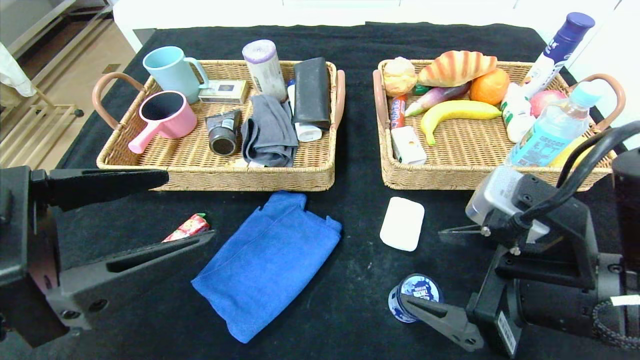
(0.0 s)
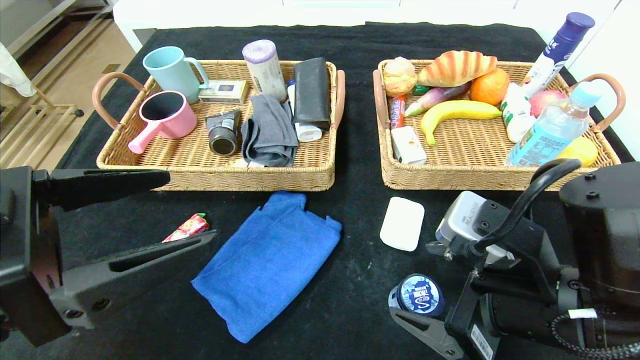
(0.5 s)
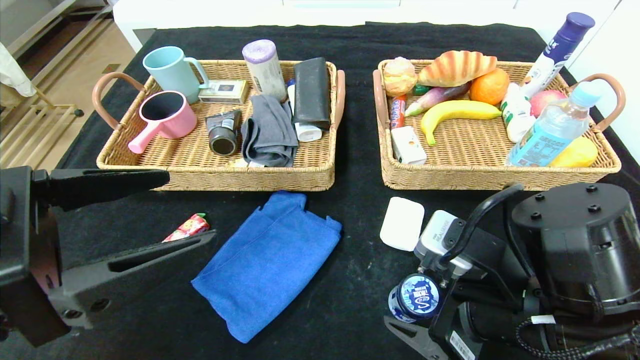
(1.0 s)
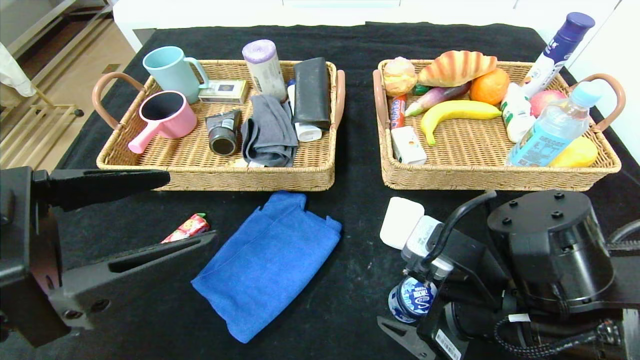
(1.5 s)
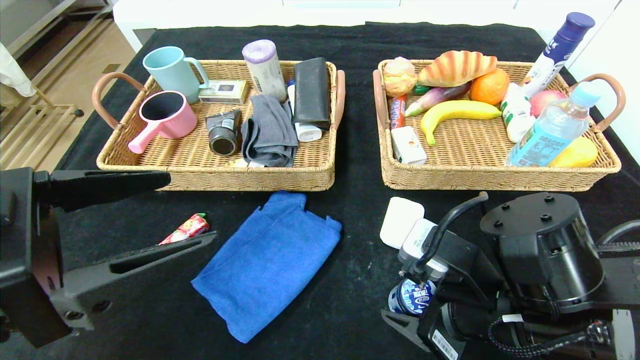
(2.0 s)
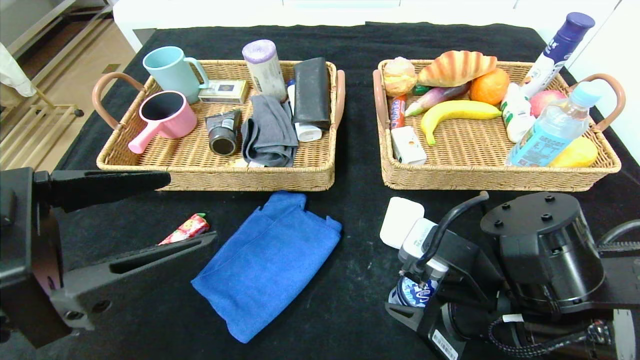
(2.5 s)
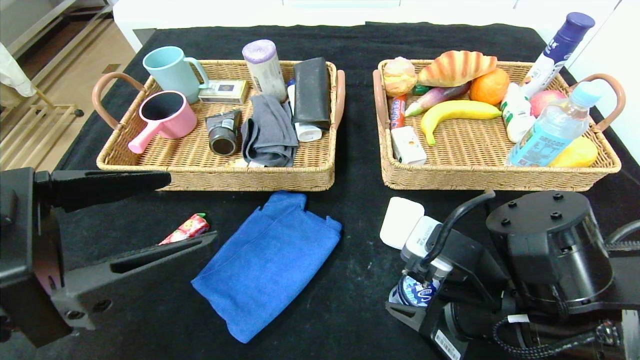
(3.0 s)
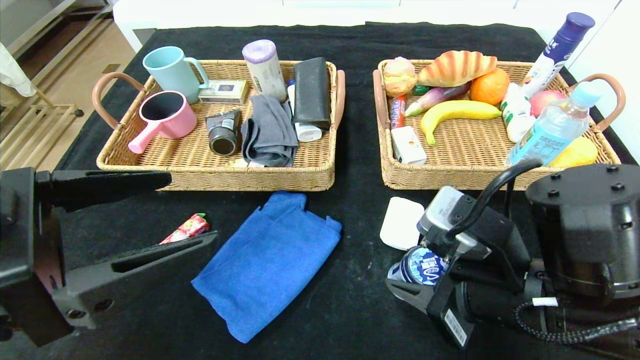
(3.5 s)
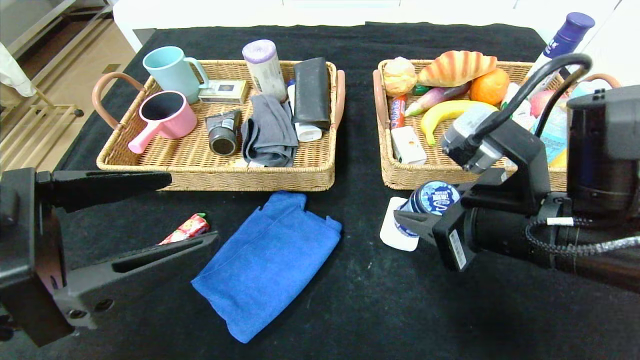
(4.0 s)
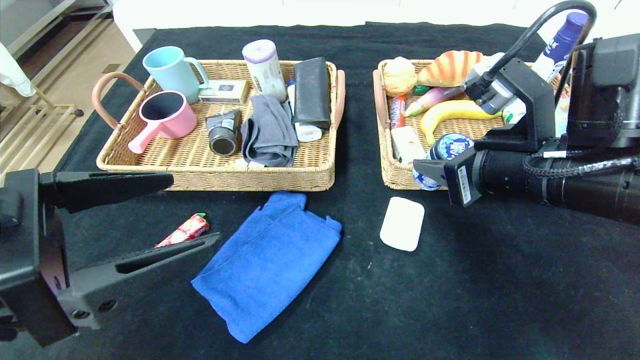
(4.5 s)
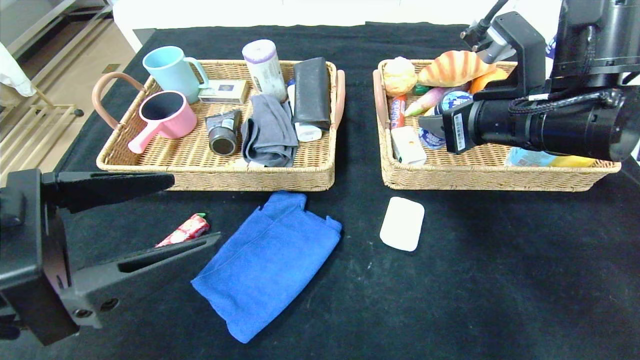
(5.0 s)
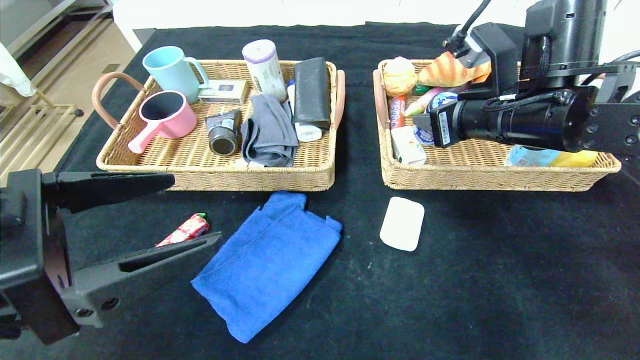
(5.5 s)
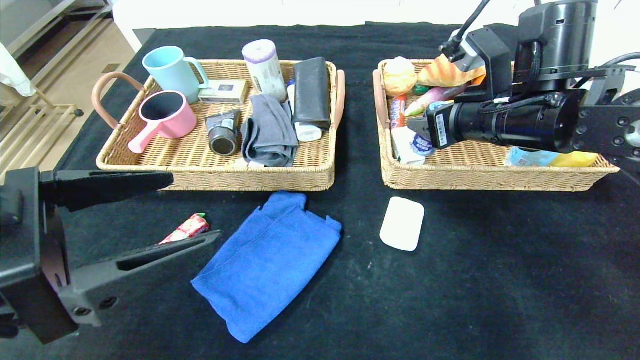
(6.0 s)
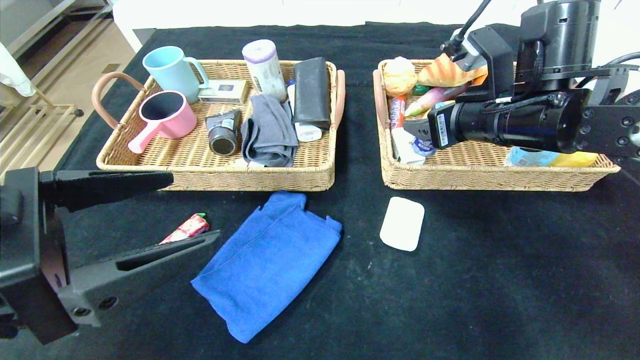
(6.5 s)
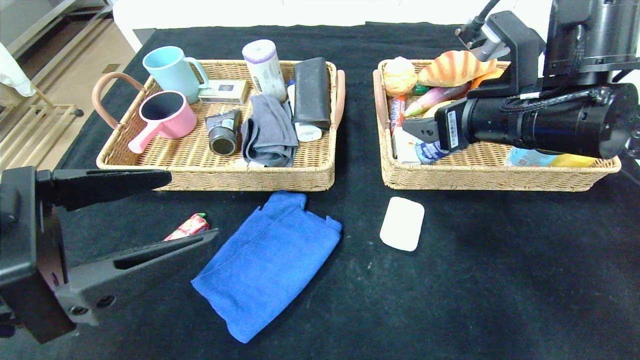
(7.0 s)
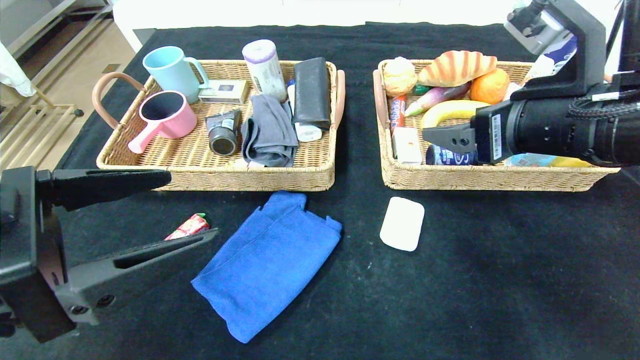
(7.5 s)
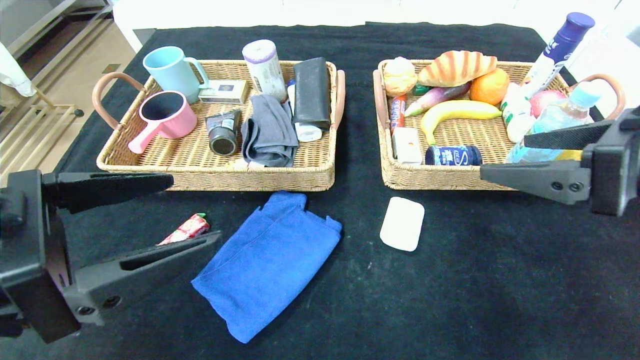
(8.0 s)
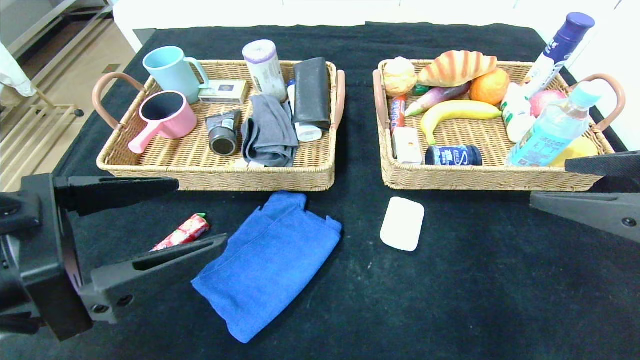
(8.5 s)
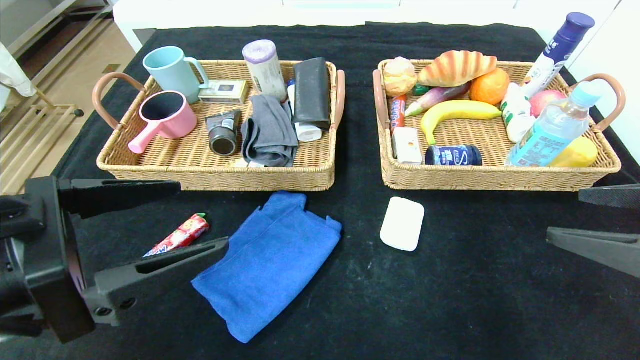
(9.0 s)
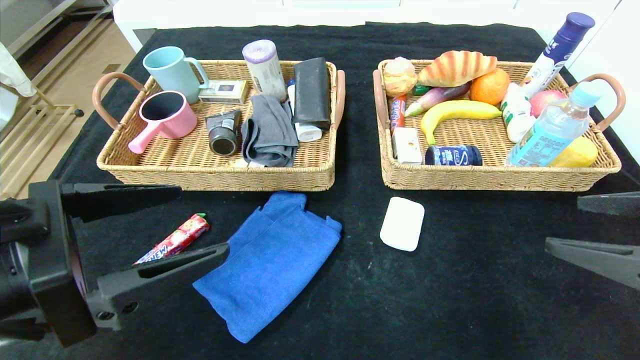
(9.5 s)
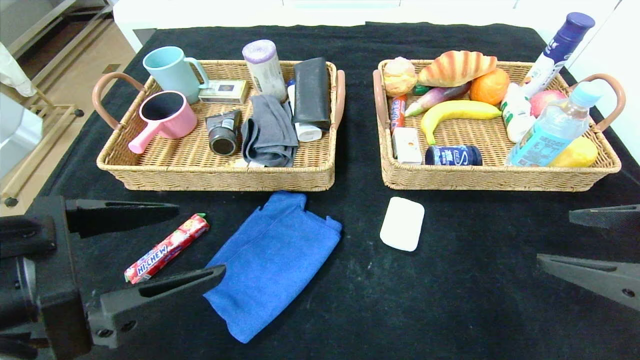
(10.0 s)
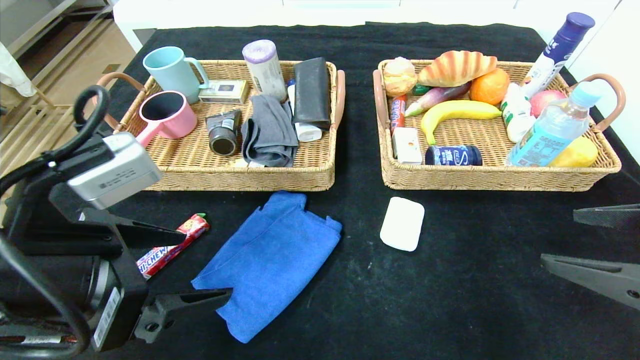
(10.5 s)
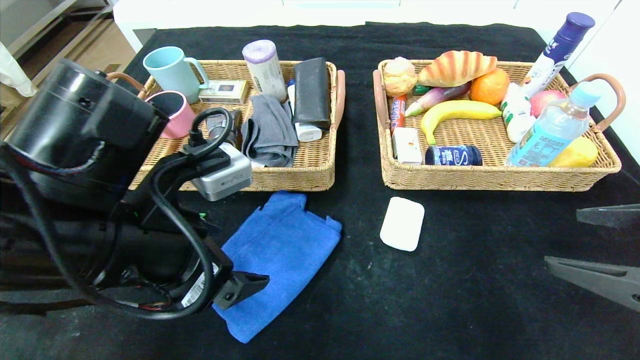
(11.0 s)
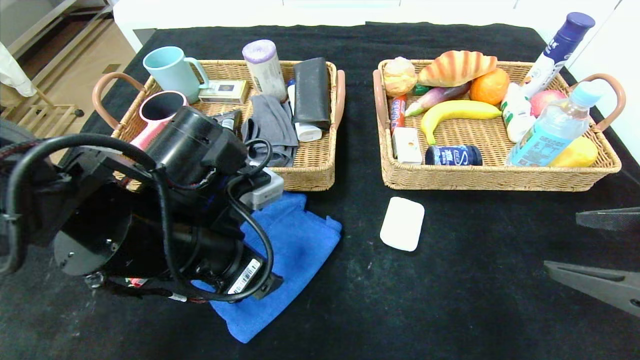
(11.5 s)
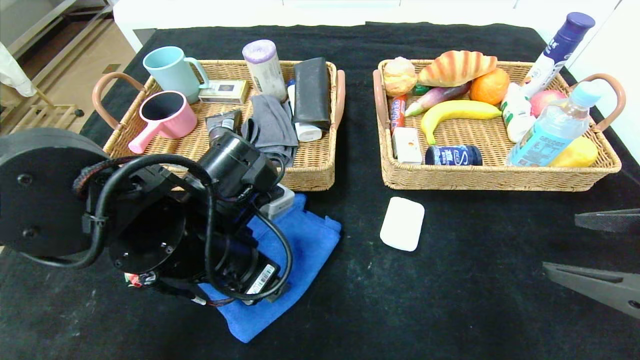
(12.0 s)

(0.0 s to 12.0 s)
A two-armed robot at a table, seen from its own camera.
Step, 0.0 s - 7.0 s: Grasp the round chewing gum and put it in the right basket.
0.0 s - 2.0 s: The right gripper heads downward, covering approximately 5 cm.
2.0 s - 4.0 s: The right gripper is displaced upward by some 5 cm.
4.0 s - 6.0 s: The right gripper heads forward and upward, covering some 15 cm.
6.0 s - 8.0 s: The right gripper shifts roughly 15 cm backward and to the right, and opens up.
8.0 s - 10.0 s: The right gripper goes about 5 cm downward and to the right.
10.0 s - 12.0 s: The left gripper heads forward, to the right and downward, covering about 15 cm.

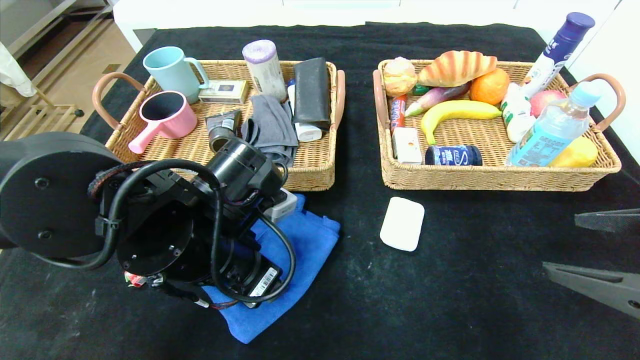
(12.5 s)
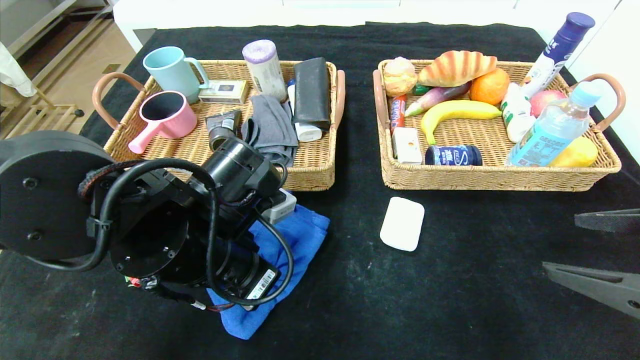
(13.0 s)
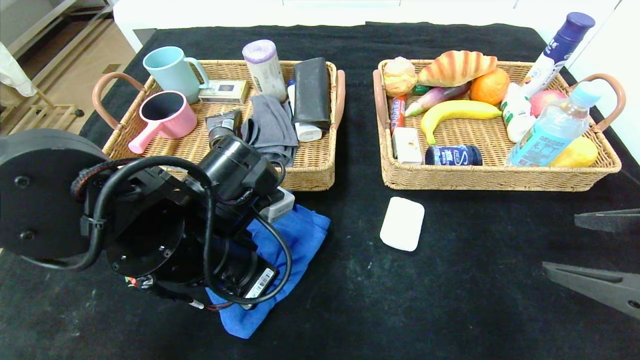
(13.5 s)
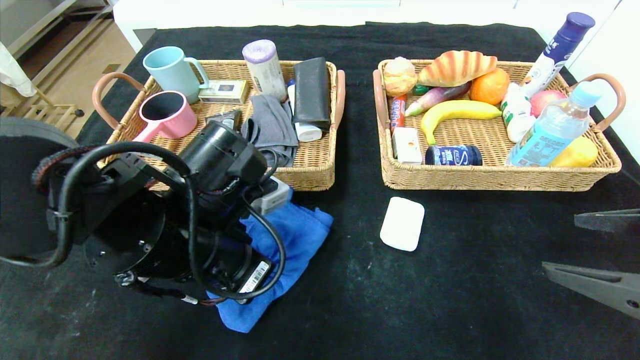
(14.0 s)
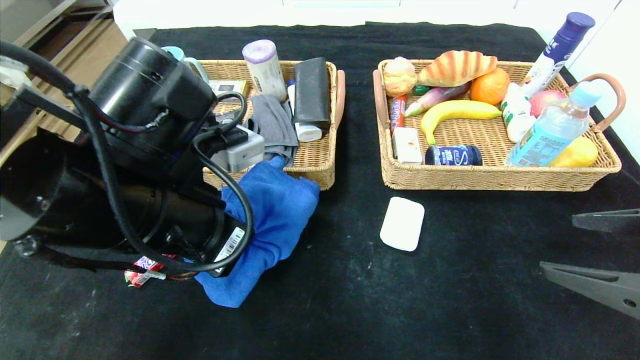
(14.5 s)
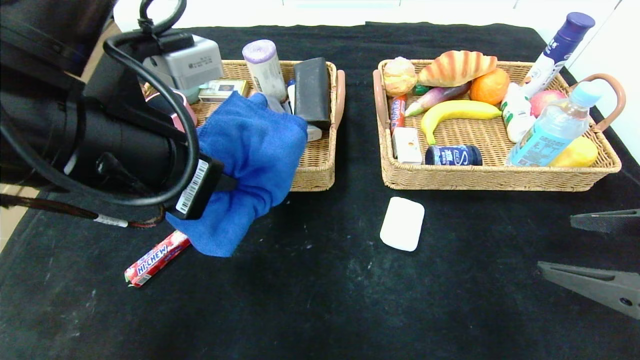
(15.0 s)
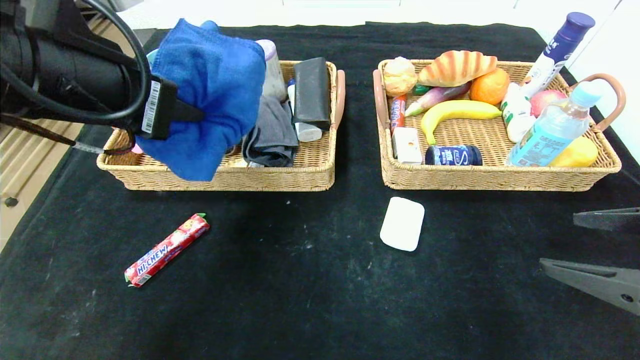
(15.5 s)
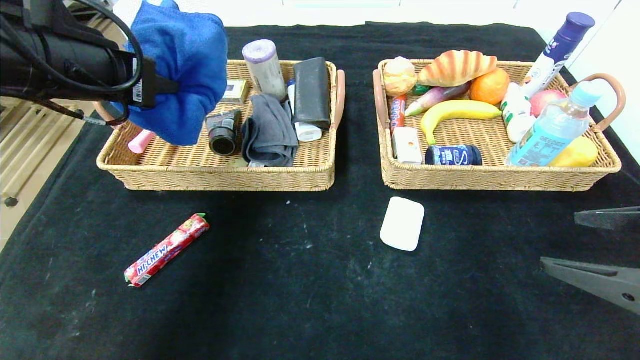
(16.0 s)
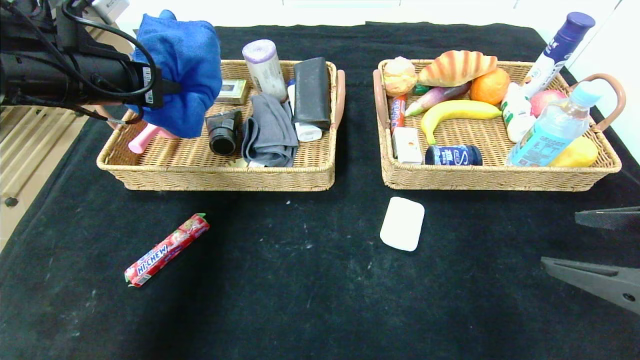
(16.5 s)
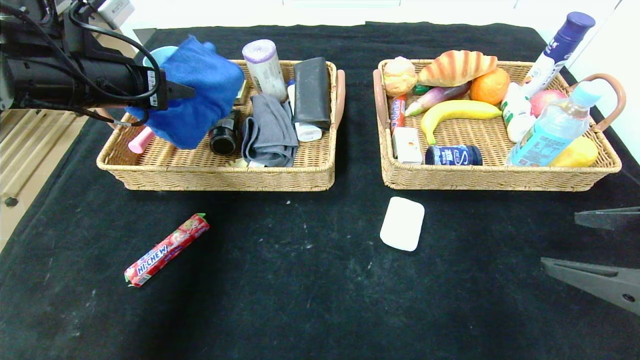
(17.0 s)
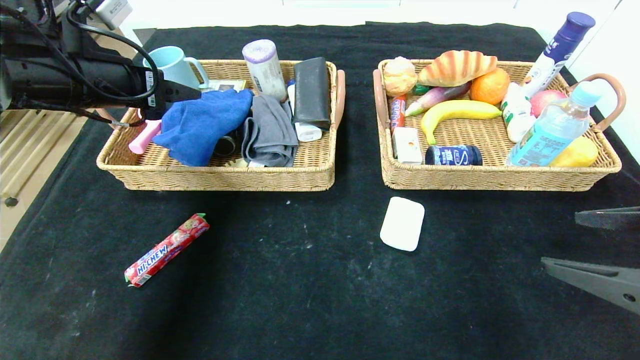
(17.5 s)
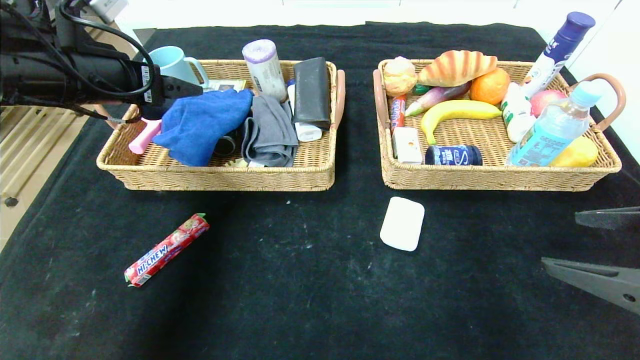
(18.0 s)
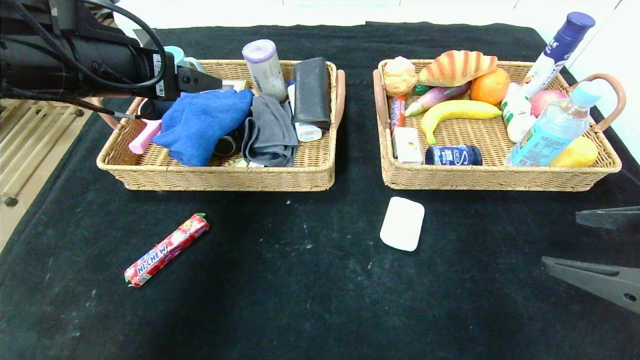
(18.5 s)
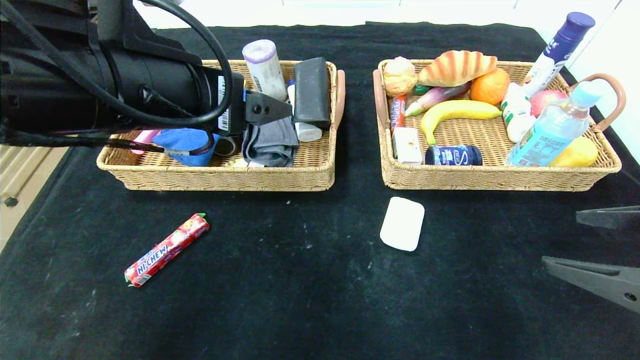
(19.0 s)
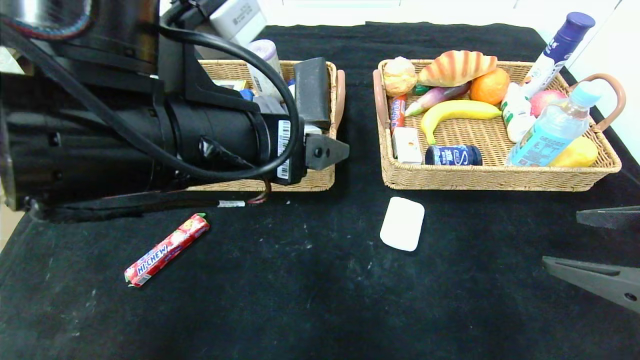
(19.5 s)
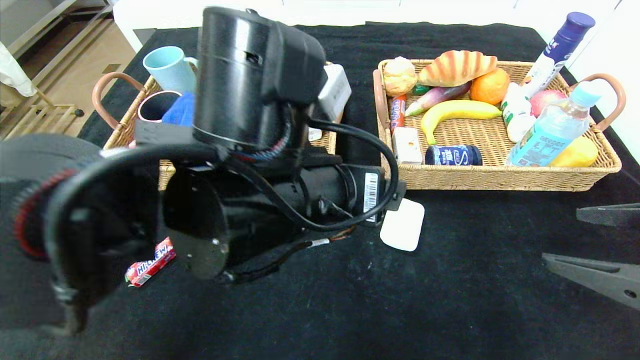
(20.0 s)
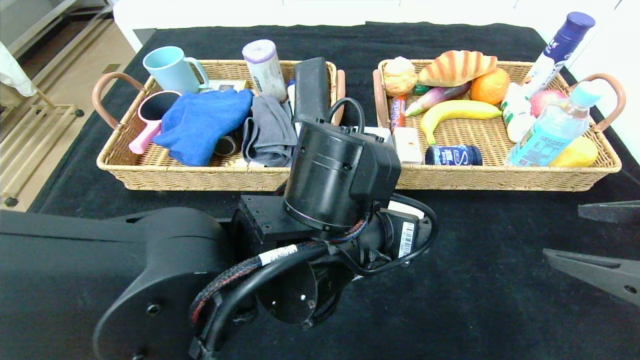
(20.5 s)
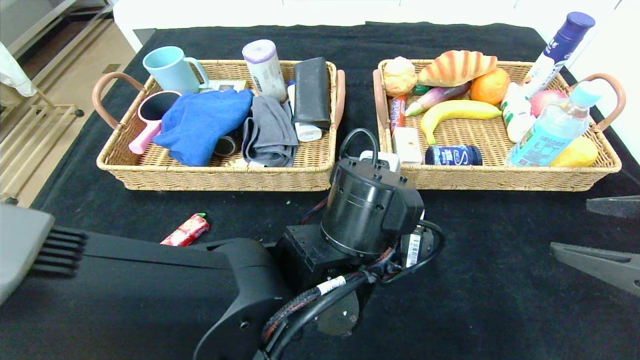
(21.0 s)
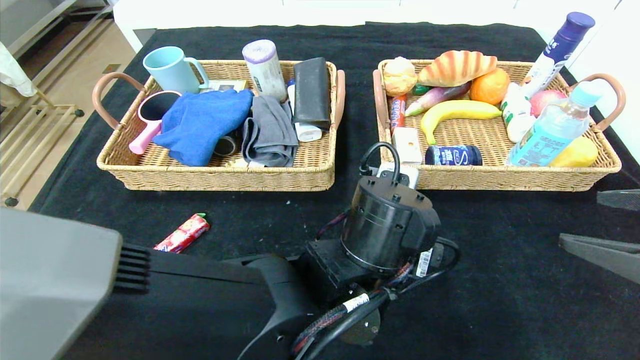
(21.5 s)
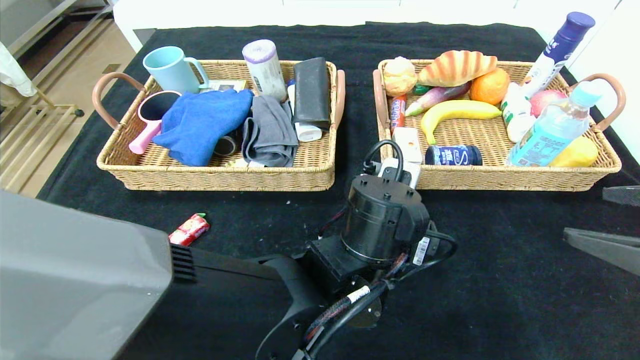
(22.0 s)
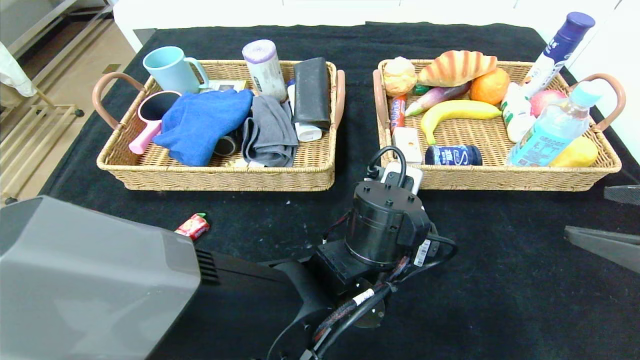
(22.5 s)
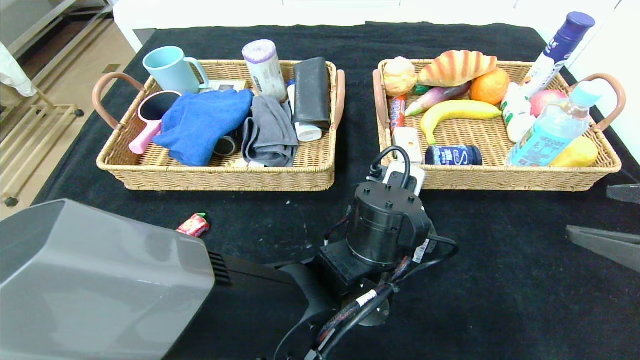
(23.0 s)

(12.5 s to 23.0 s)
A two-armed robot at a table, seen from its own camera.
Step, 12.5 s - 17.5 s: Grasp the blue towel and put it in the left basket.
12.5 s - 14.5 s: The left gripper heads upward, covering some 5 cm, and closes up.
14.5 s - 16.5 s: The left gripper moves to the left, forward and upward, approximately 20 cm.
16.5 s - 19.0 s: The left gripper goes roughly 15 cm to the right and backward, and opens.
19.0 s - 21.0 s: The left gripper shifts approximately 25 cm to the right and downward.
